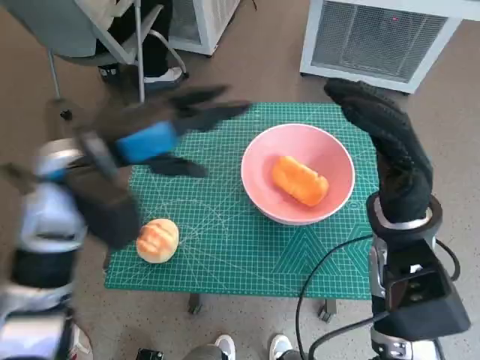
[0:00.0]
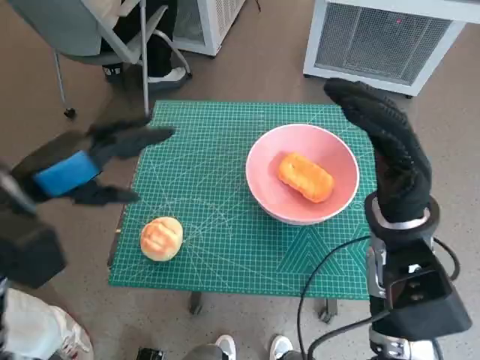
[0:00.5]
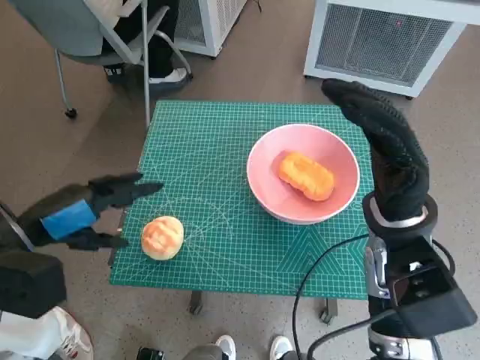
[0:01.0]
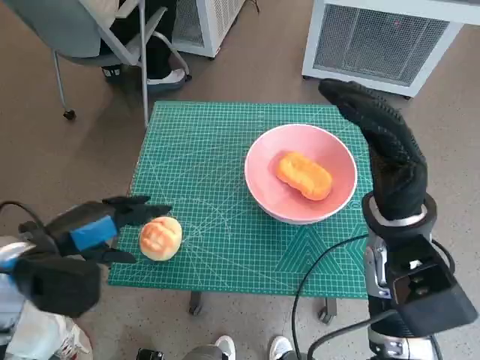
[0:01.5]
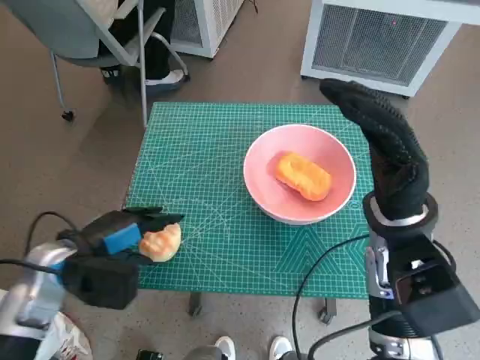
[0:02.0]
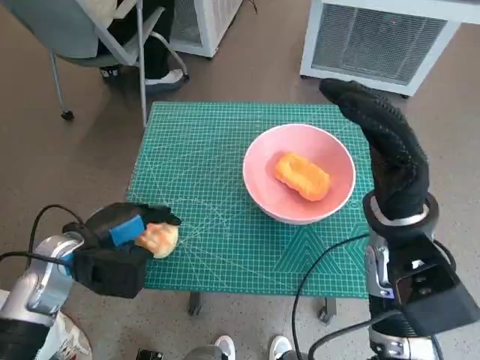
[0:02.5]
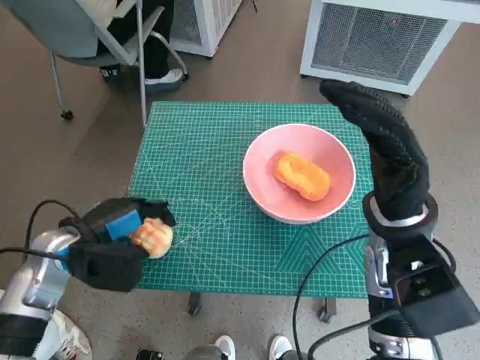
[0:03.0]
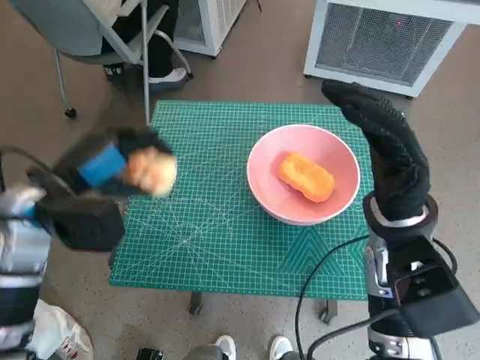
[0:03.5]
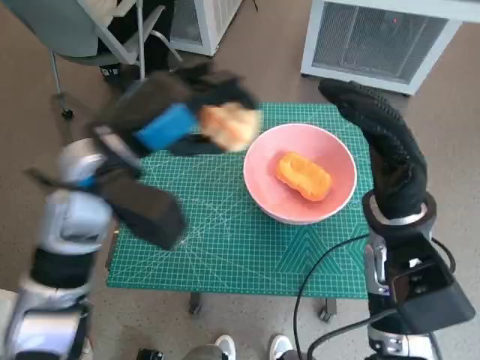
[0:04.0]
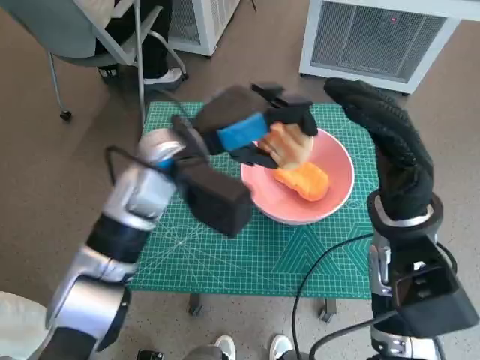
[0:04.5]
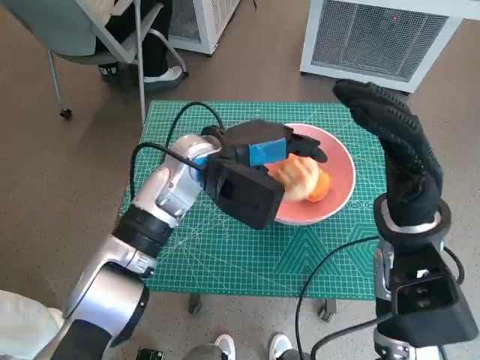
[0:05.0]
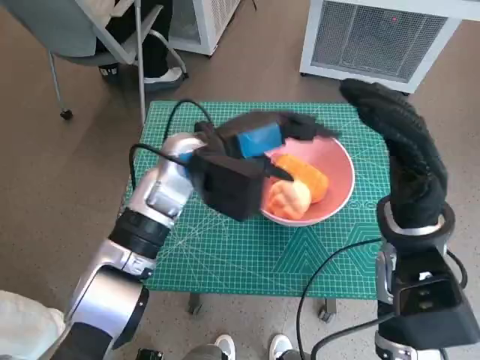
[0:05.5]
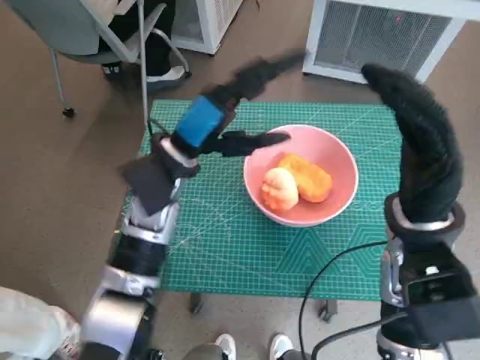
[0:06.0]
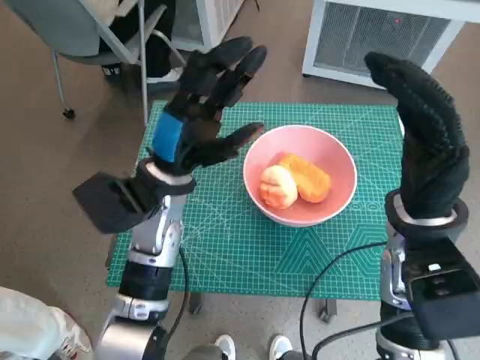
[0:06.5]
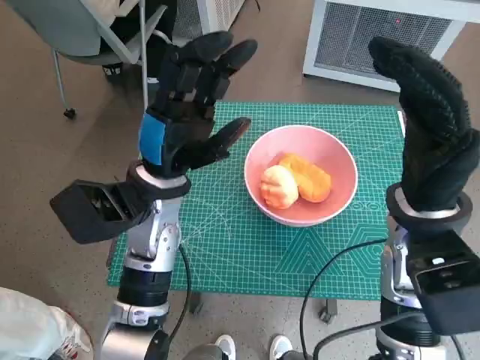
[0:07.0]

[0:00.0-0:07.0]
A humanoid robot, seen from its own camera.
Task of the whole recording: Push the bowl to the center of the table and put the bread into the bowl.
Step, 0:00.0 to 0:02.0: Grasp the round bread with left hand.
Step, 0:03.0 to 0:05.5: Place the round bread in pink bowl with left hand.
0:00.0 to 0:02.0: The left hand shifts approximately 15 cm downward, to the left and backward.
0:02.0 to 0:03.5: The left hand goes roughly 5 cm upward.
0:03.5 to 0:05.0: The left hand moves to the right, some 20 cm.
0:05.0 to 0:07.0: The left hand goes some 5 cm to the left.
